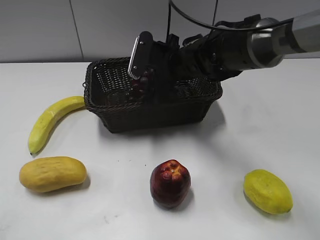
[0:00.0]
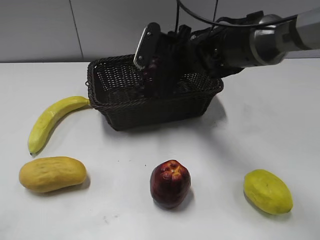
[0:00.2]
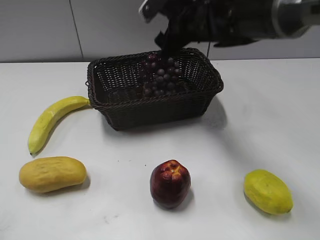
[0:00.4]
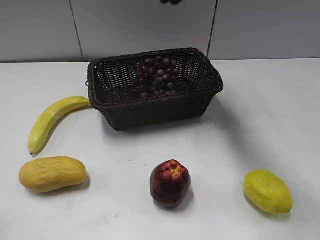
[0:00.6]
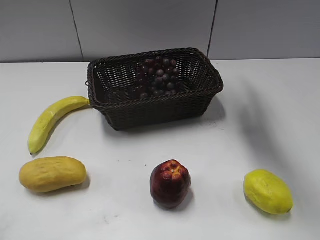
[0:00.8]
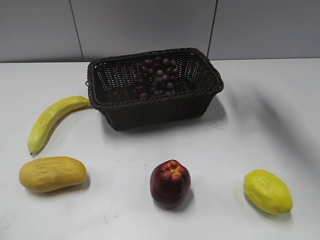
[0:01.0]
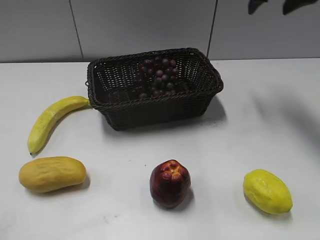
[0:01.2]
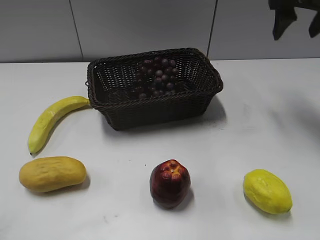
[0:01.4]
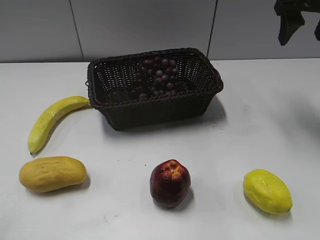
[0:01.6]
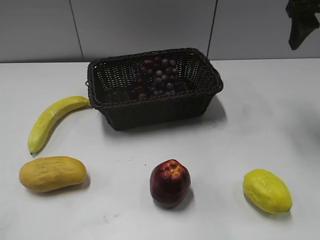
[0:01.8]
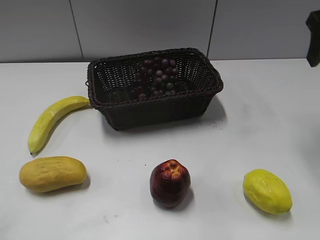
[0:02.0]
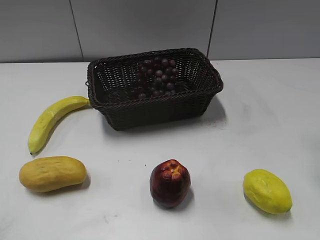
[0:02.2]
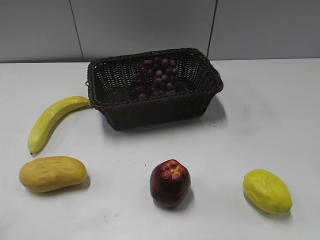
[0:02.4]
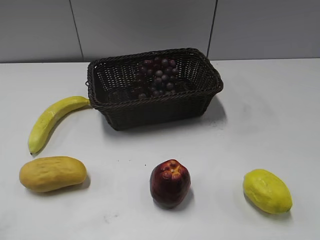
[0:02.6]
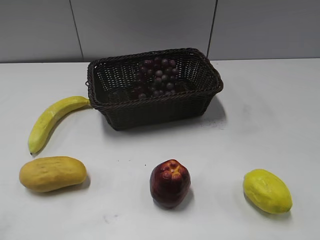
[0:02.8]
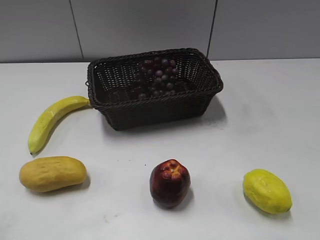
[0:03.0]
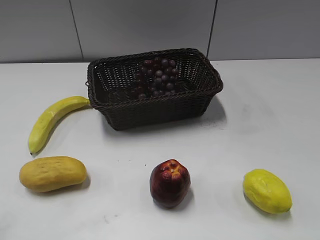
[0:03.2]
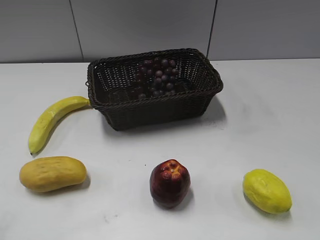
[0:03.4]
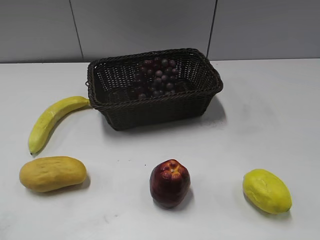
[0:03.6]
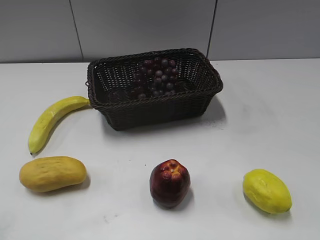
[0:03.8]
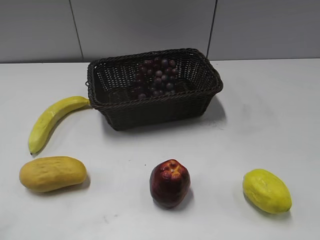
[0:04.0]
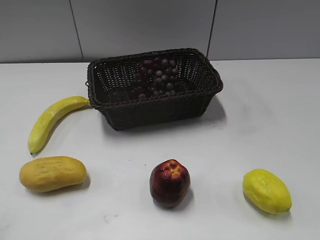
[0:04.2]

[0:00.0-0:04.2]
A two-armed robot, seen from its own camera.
0:00.0 to 0:01.4: The right gripper shifts about 25 cm to the right and upward.
0:01.4 to 0:02.8: The right gripper goes about 30 cm backward.

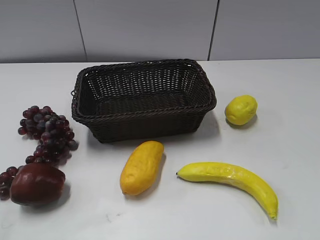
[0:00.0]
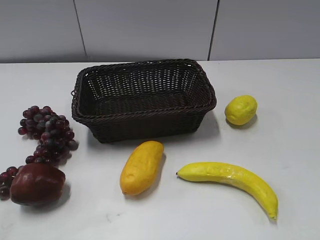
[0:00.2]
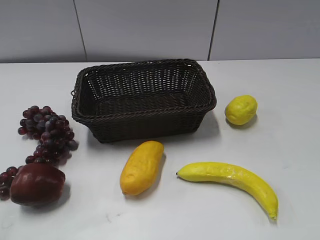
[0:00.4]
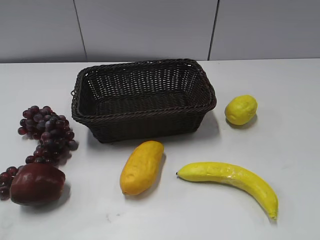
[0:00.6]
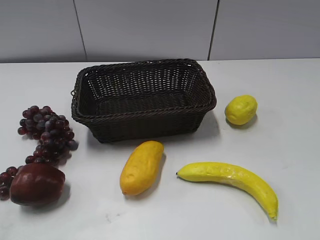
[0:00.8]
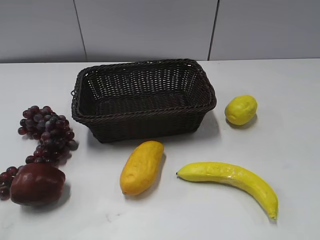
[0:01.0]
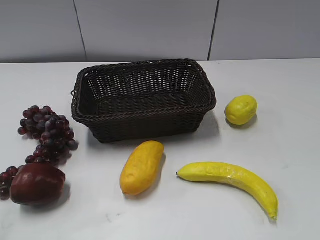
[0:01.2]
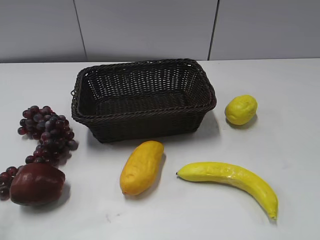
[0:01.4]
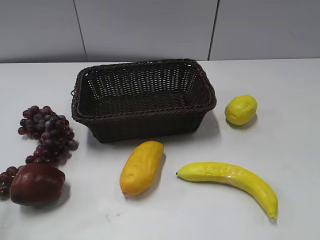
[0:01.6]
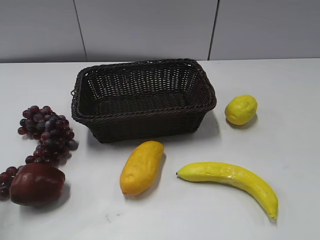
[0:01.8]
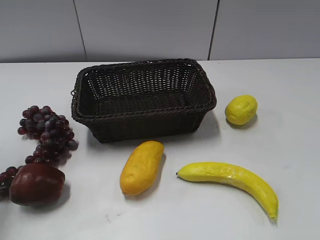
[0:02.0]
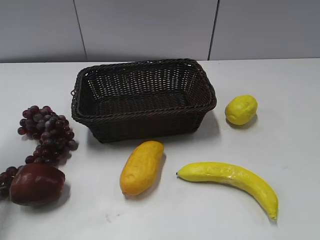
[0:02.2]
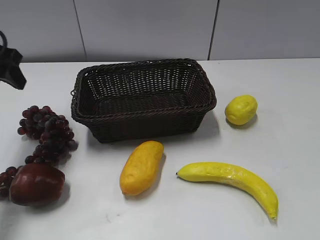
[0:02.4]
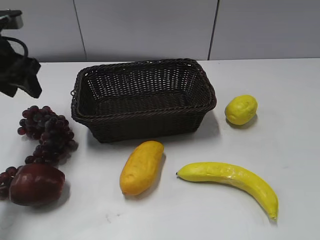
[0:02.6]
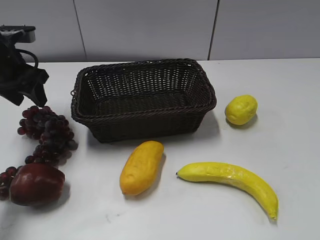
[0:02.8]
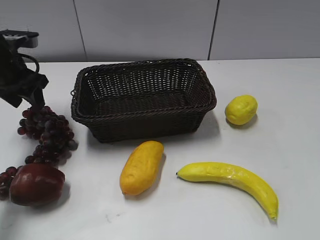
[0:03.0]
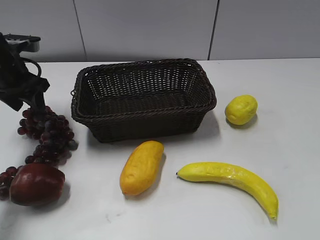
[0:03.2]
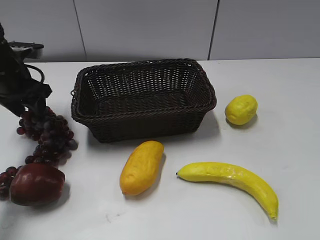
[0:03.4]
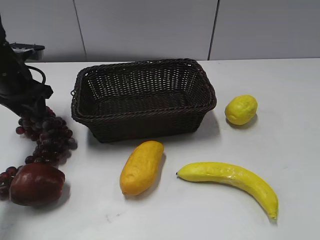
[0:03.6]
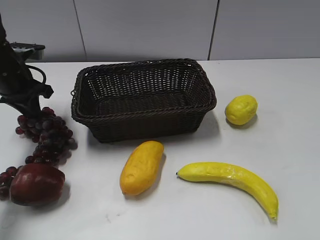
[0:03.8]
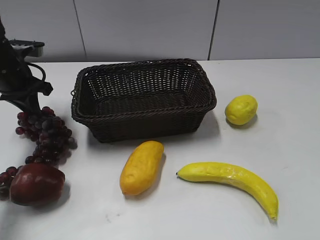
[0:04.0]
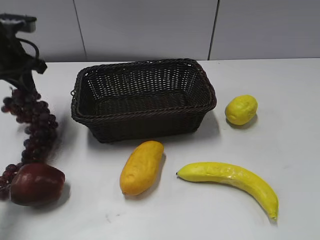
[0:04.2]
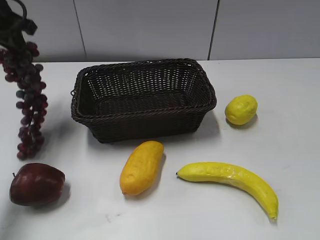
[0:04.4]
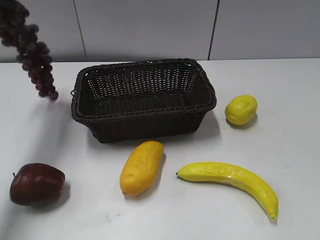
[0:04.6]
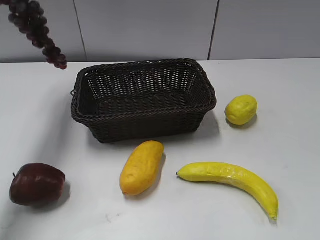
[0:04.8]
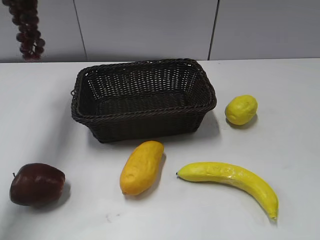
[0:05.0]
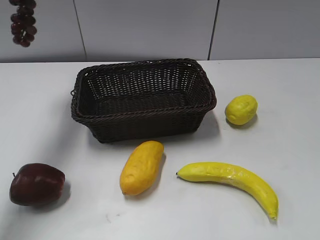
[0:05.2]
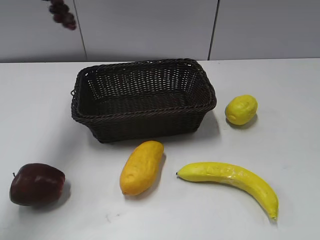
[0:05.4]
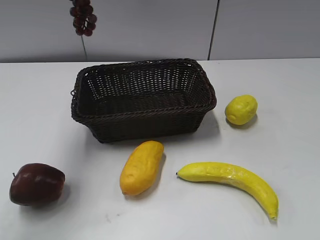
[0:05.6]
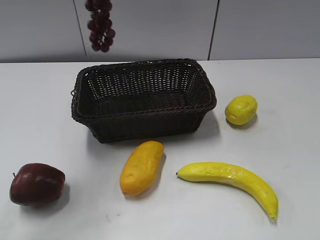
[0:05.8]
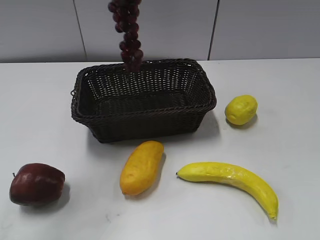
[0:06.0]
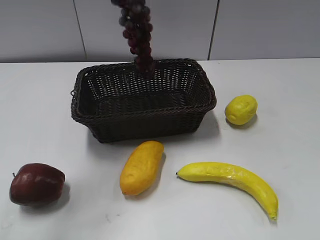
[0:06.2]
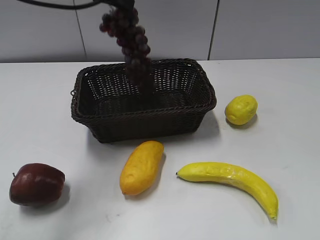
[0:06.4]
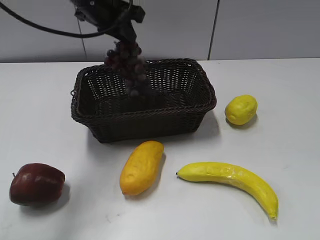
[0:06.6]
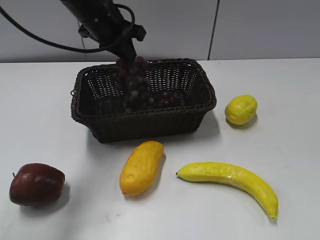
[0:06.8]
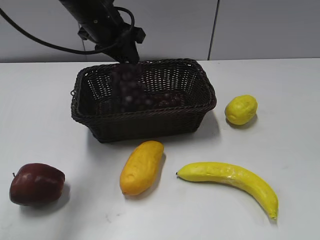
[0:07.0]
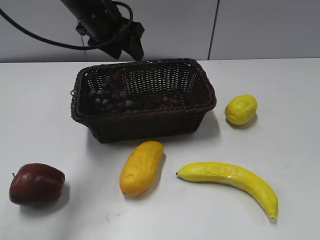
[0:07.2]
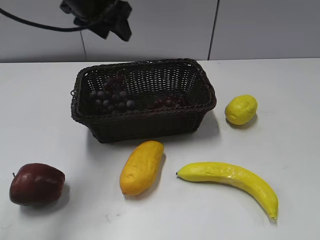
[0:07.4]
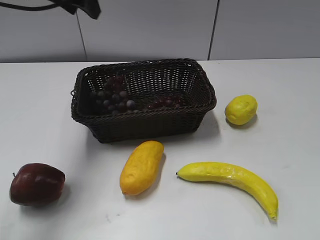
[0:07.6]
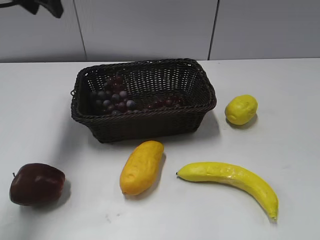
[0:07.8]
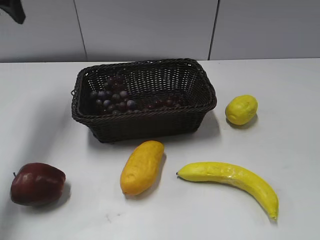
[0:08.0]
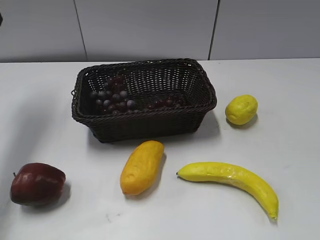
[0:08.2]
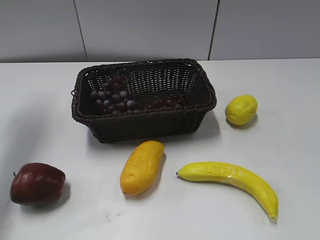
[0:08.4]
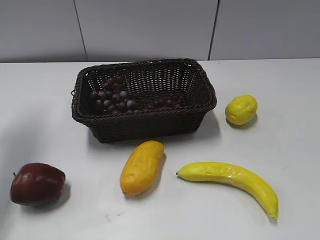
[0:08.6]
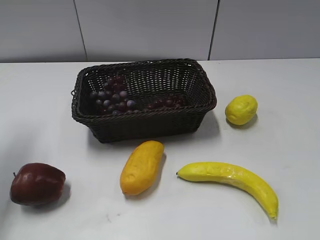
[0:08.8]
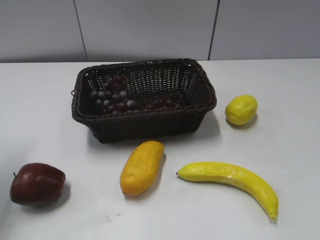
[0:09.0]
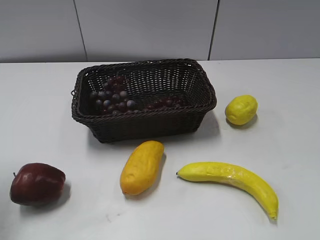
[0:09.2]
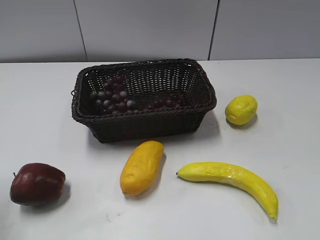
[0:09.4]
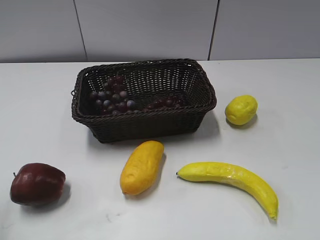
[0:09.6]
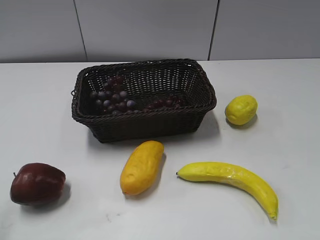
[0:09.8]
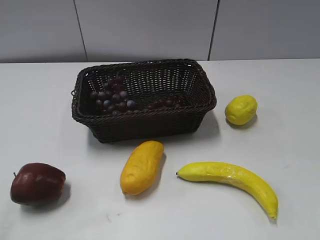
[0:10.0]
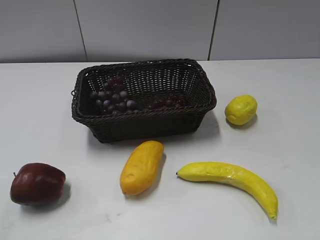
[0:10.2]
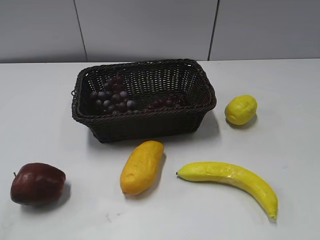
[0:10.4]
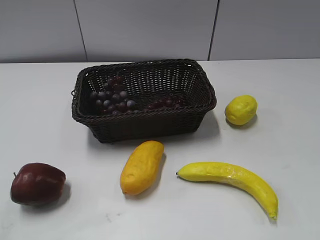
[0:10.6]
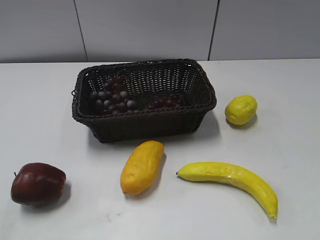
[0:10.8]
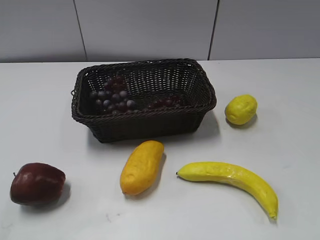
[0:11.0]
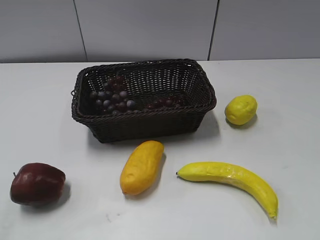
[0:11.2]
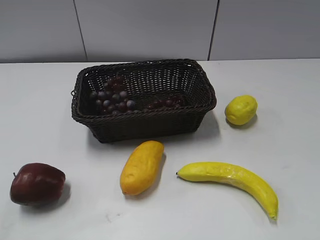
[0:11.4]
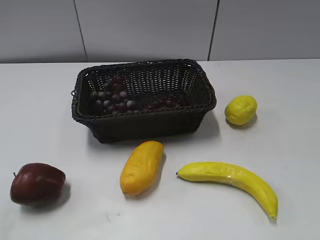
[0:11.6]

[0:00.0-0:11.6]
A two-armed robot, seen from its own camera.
Step, 0:02.4 to 0:04.2: Grasp the grape with left gripper.
Step, 0:04.4 to 0:07.2: Place the grape in the basket with left gripper.
0:01.4 to 0:02.8: The left gripper heads forward, covering about 30 cm.
0:02.8 to 0:04.4: The left gripper shifts about 10 cm upward, and closes.
0:04.4 to 0:05.8: The left gripper moves upward and to the right, about 20 cm.
0:05.8 to 0:07.2: The left gripper is displaced downward by about 20 cm, and opens.
0:07.2 to 0:08.8: The left gripper is displaced to the left and backward by about 25 cm.
0:08.8 to 0:10.2: The left gripper travels backward by about 25 cm.
